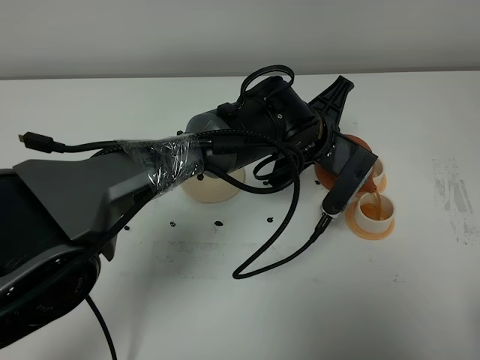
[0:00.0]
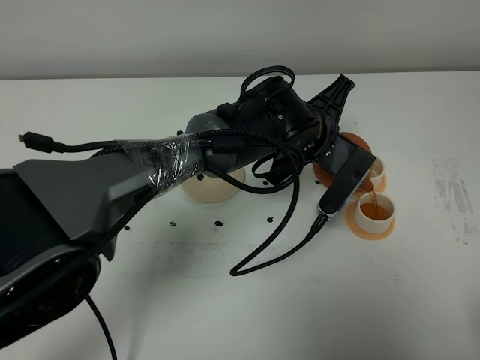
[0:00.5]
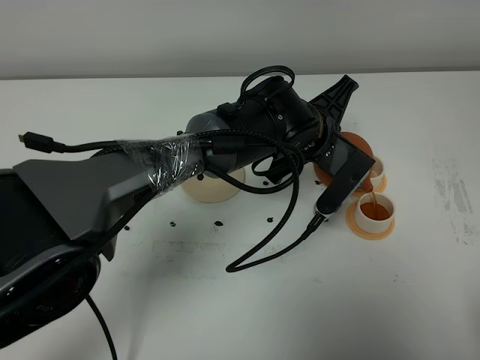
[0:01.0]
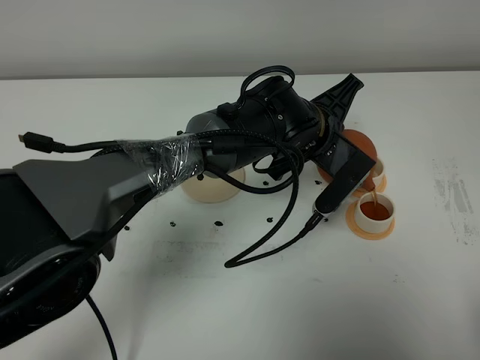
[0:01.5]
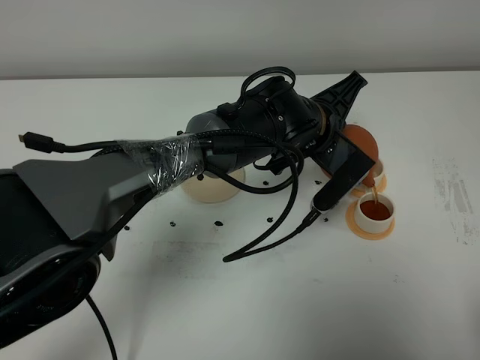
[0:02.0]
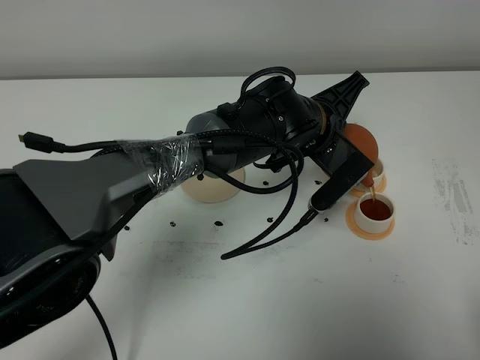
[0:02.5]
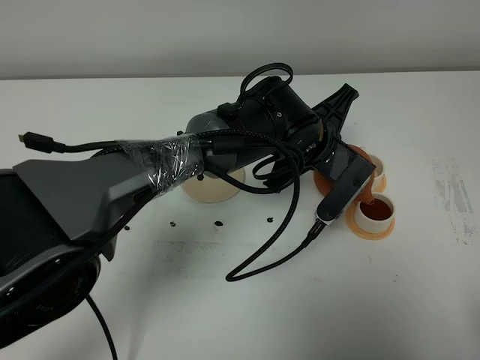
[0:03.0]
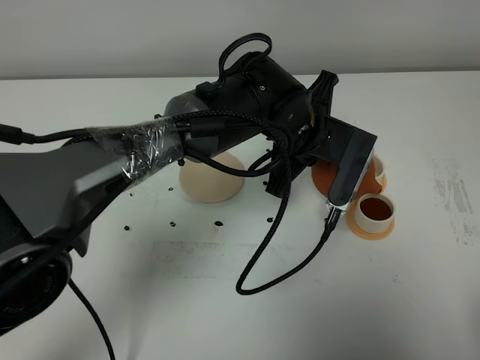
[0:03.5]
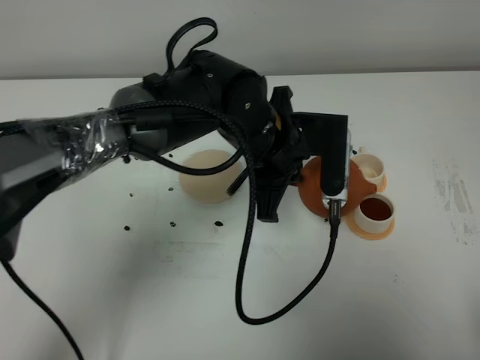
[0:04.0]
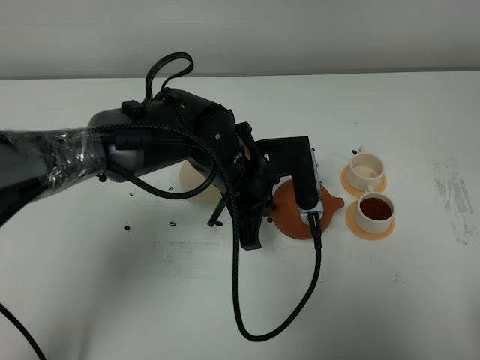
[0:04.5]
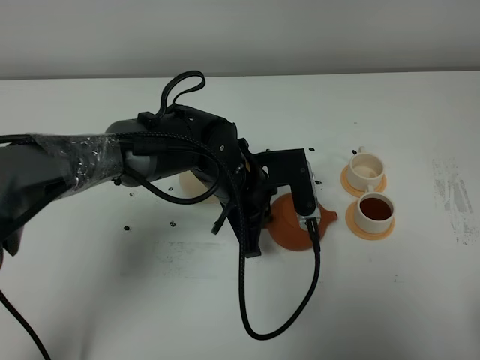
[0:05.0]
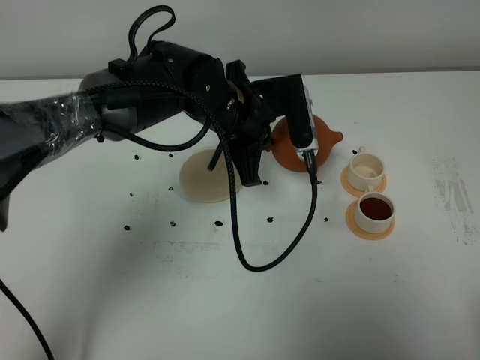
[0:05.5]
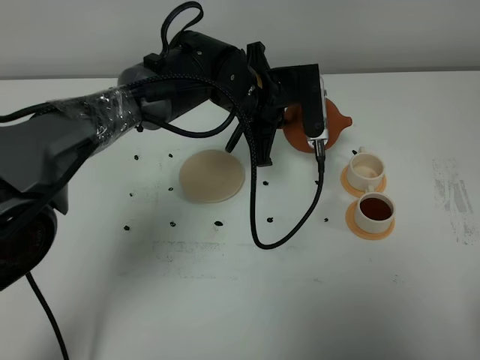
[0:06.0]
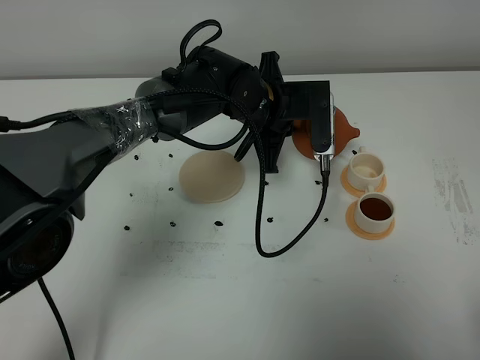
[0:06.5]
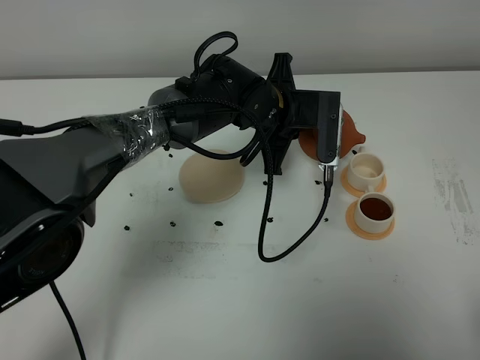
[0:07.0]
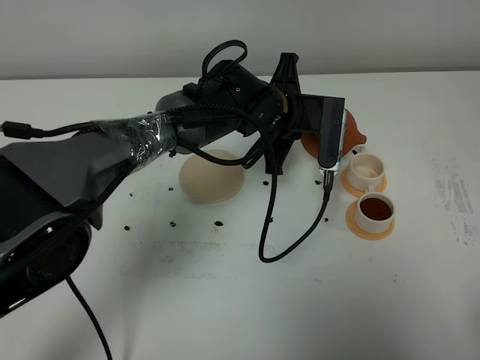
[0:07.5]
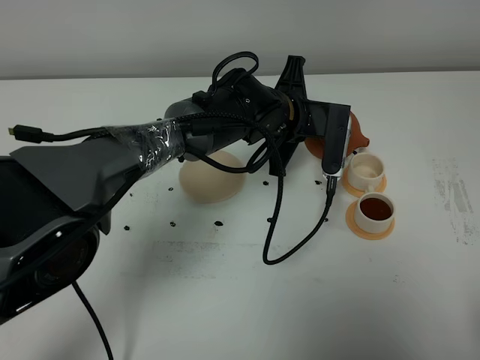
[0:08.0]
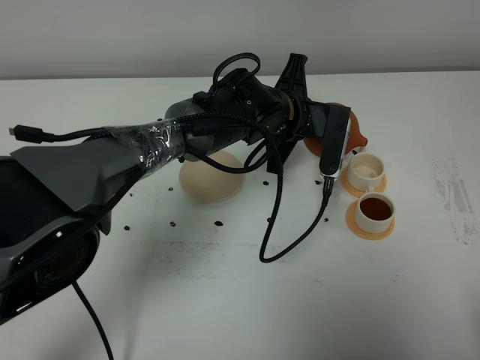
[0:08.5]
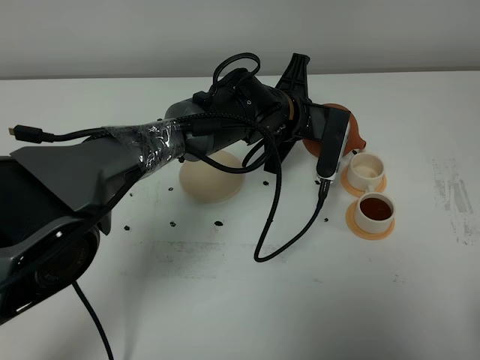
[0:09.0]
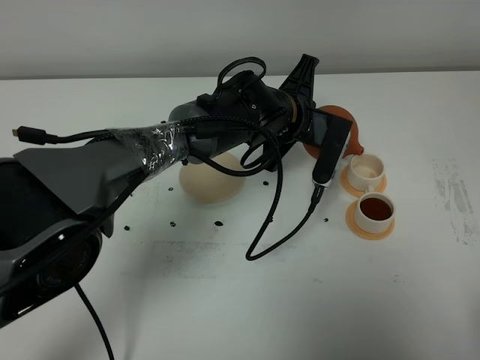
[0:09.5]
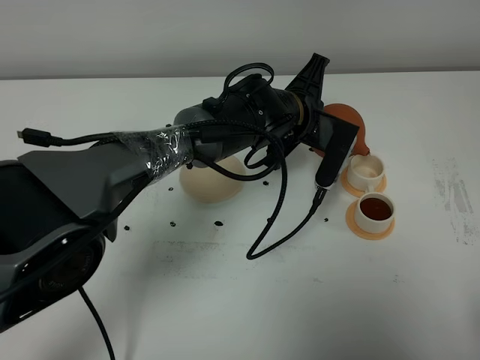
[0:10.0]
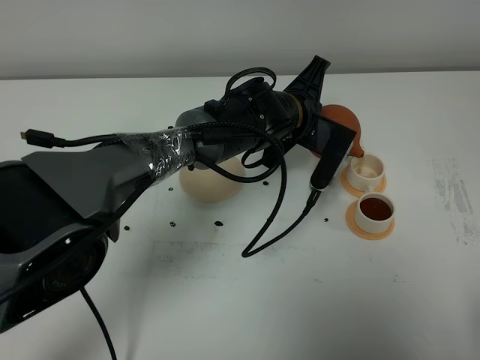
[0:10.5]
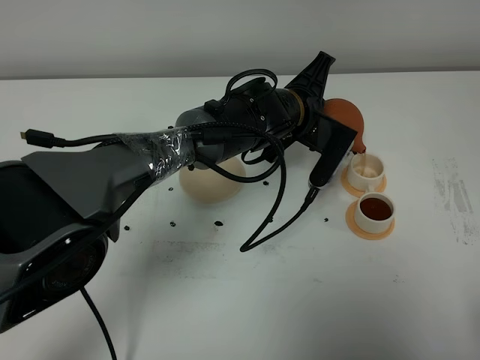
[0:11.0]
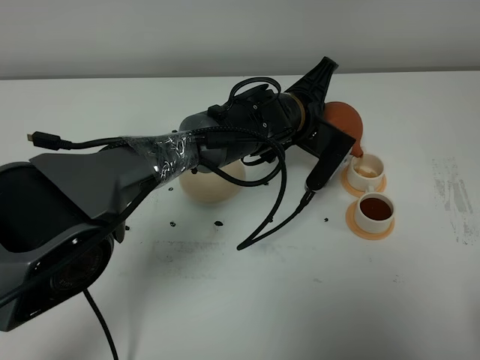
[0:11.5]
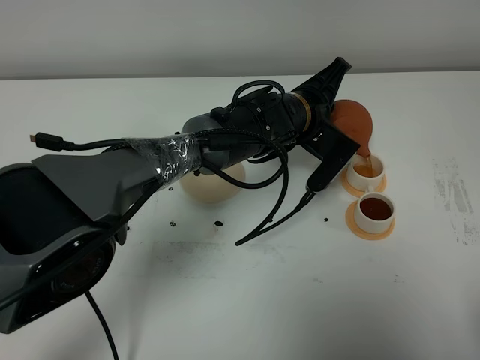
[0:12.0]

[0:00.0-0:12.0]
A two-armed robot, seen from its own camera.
Task of the whole recording: grasp the brown teapot and pour the tea into the two white teacups one by one, put the brown teapot back in its original place.
0:00.0 to 0:02.0: There are only small adjustments of the grippers.
0:02.0 to 0:04.0: The left gripper goes roughly 5 cm to the left.
0:04.0 to 0:06.0: The left gripper heads forward, covering approximately 10 cm.
0:08.0 to 0:10.0: The grippers make only small movements.
0:10.0 to 0:12.0: There are only small adjustments of the grippers.

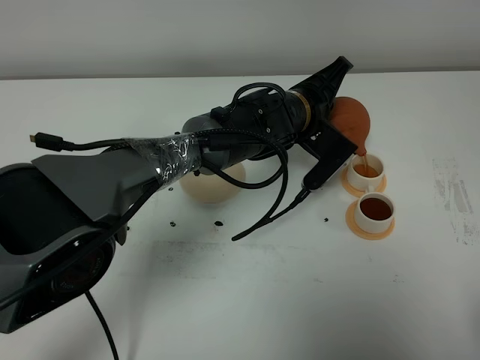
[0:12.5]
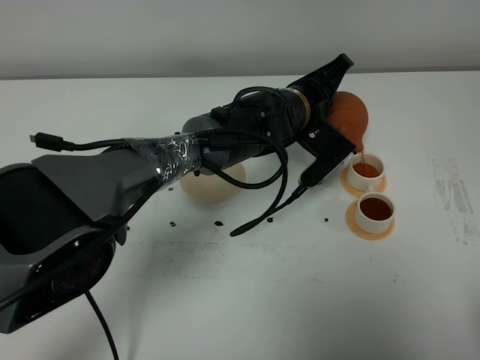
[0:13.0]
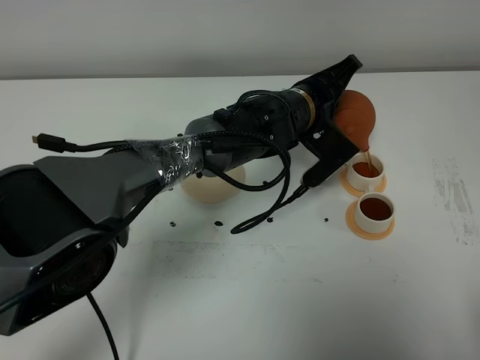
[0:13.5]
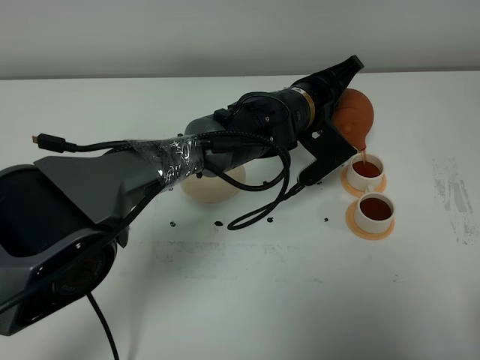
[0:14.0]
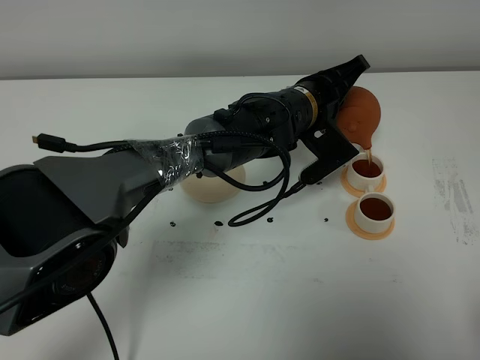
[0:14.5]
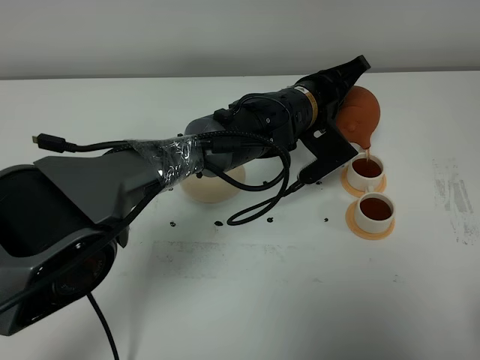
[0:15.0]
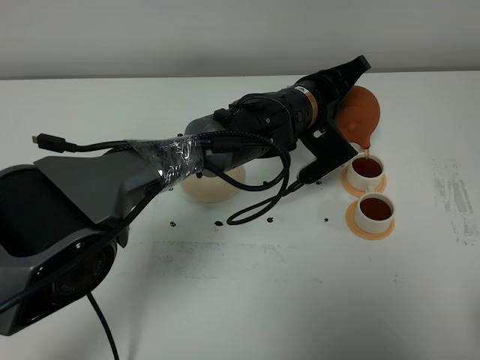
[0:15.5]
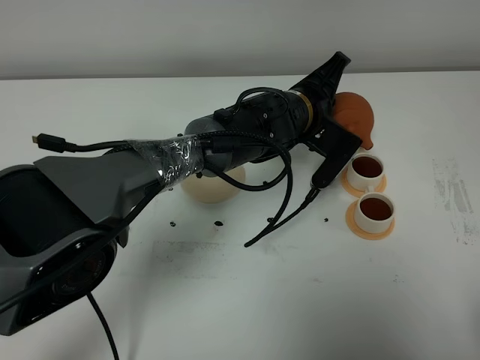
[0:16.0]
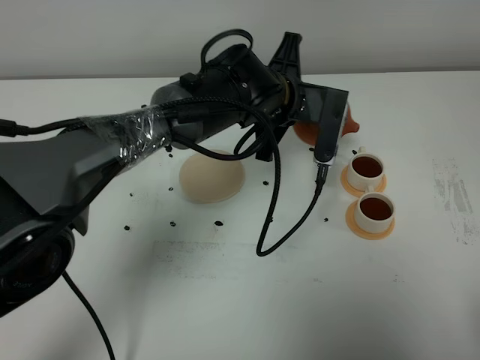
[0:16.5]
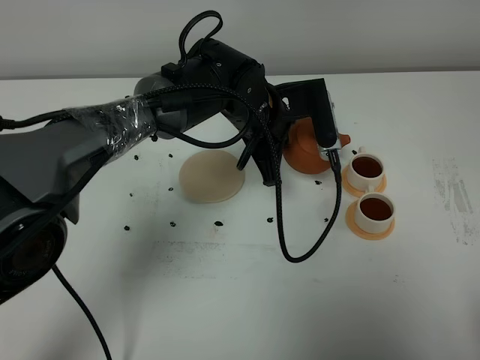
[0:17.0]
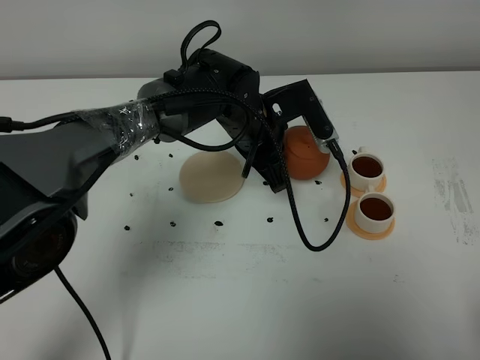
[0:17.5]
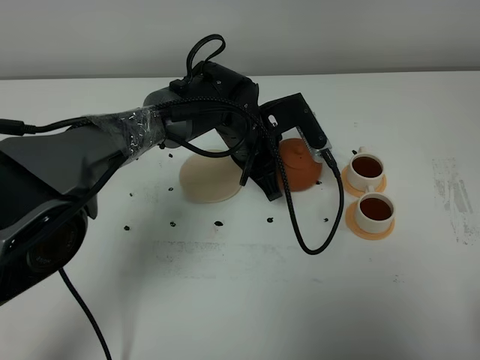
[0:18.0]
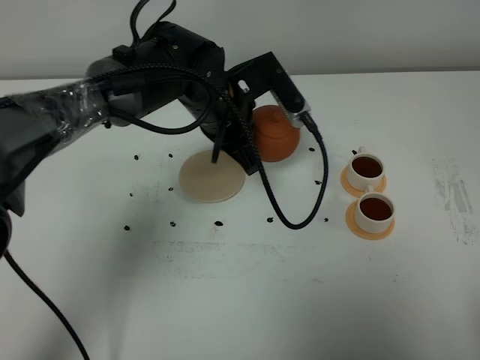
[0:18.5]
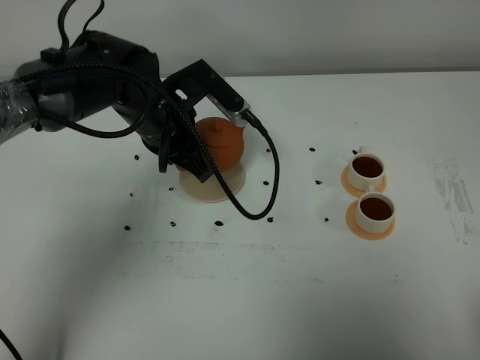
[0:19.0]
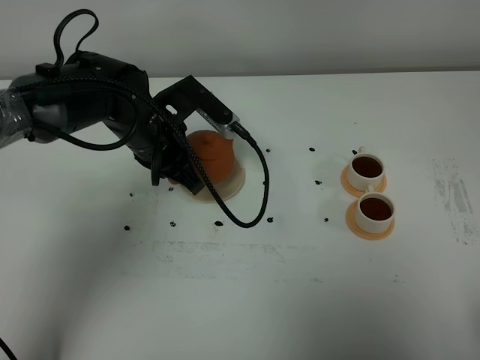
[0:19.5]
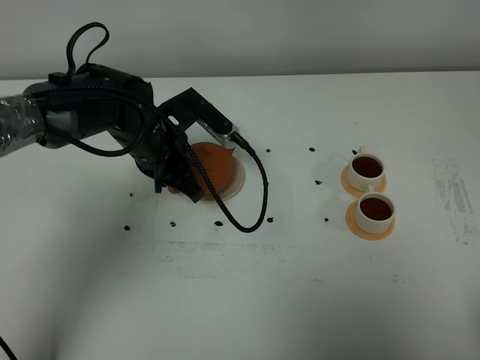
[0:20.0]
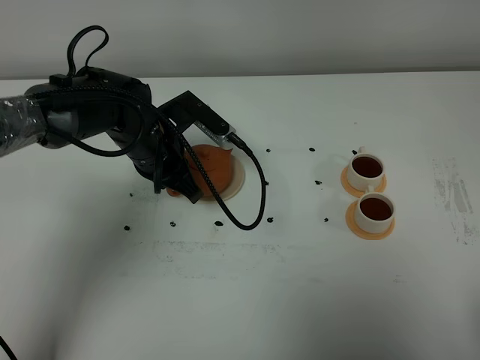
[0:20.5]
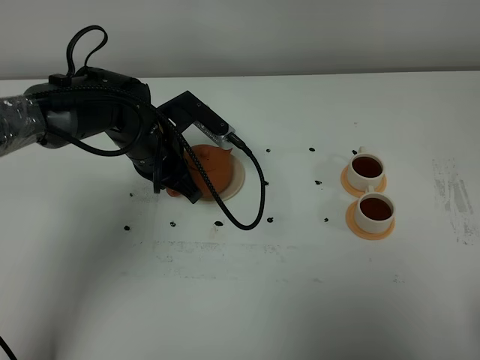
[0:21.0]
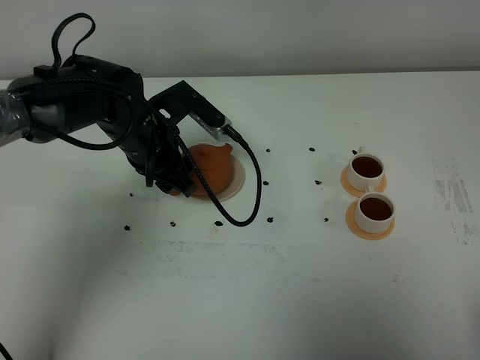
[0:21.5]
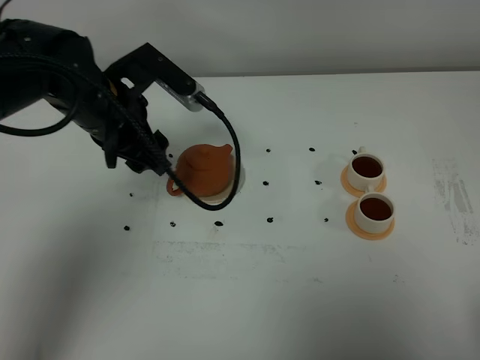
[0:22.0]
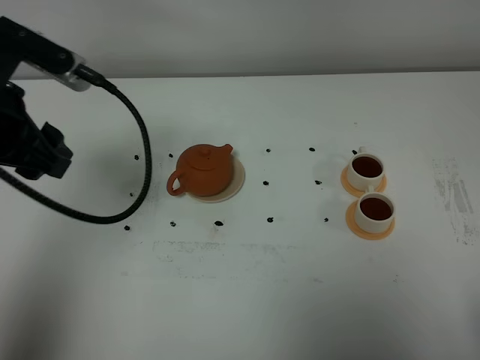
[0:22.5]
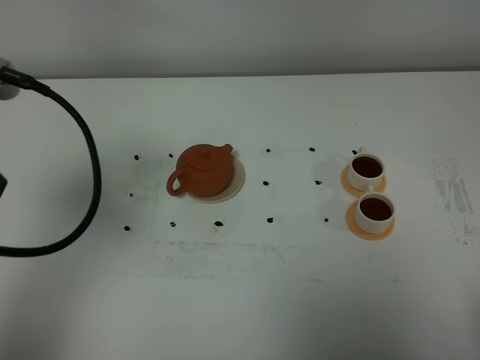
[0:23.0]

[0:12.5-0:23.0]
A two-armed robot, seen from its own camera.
Task of the whole recording: grasp the brown teapot and pour the tea into the two white teacups one by one, put the brown teapot back in its original place.
Step, 0:12.5 to 0:16.0: Pour tea into the teacup with the left gripper.
0:12.5 to 0:14.5: There are only small adjustments of the grippers.
0:14.5 to 0:16.5: The left gripper shifts by some 5 cm.
0:16.5 to 0:19.0: The left gripper moves to the left, about 15 cm.
0:19.0 to 0:21.0: The grippers make only small movements.
0:21.0 to 0:23.0: The left gripper moves upward, backward and to the left, about 30 cm, and opens.

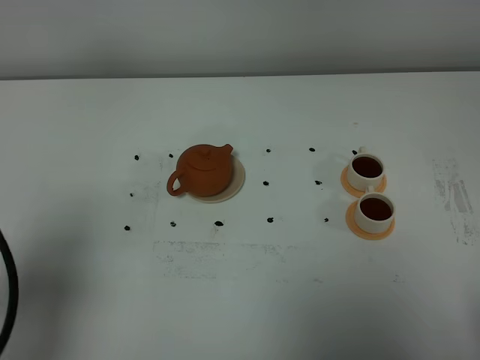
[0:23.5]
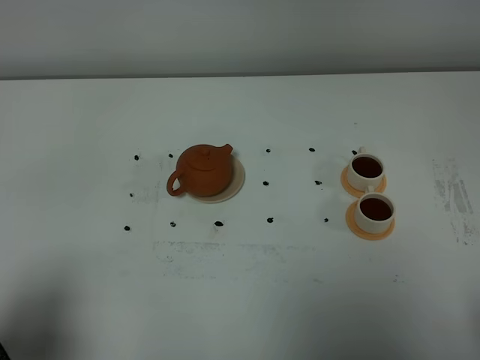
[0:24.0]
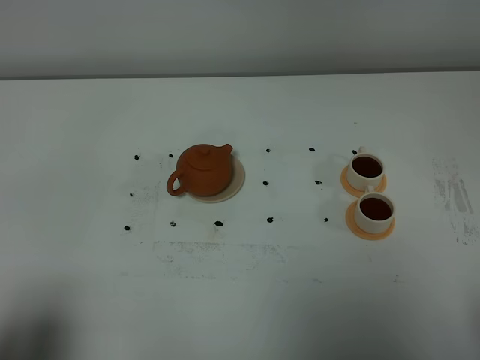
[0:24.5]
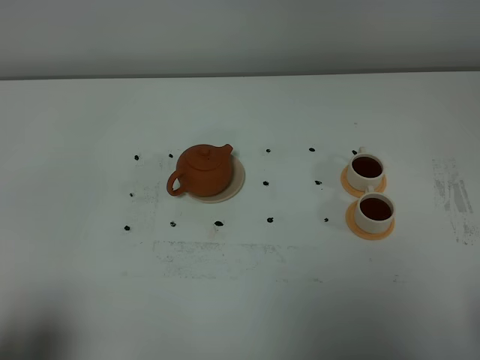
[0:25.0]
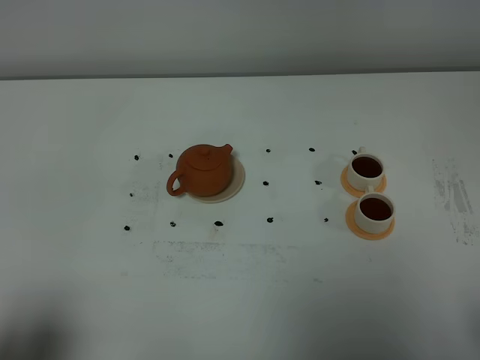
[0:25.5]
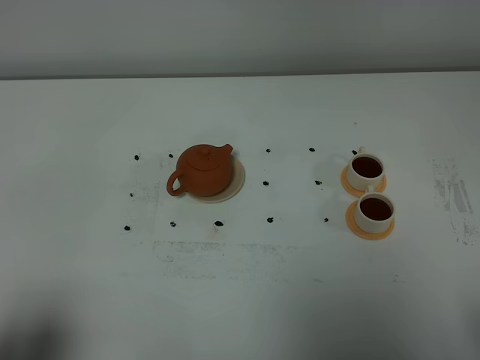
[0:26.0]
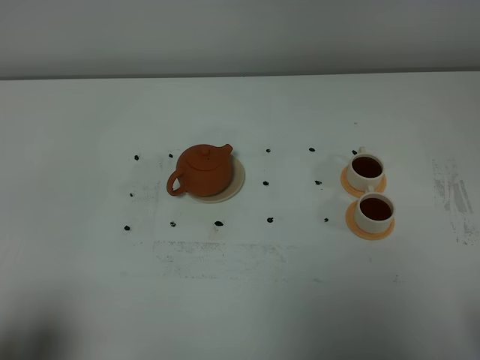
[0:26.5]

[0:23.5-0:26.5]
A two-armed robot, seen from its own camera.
Task of the whole recording: grasp the brown teapot and pour the tea into the two white teacups one by one, put the brown teapot back in its original place.
0:23.5 to 0:25.0: The left gripper moves backward and downward, approximately 10 cm.
